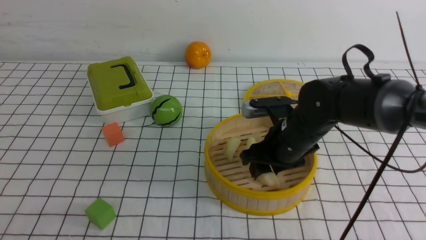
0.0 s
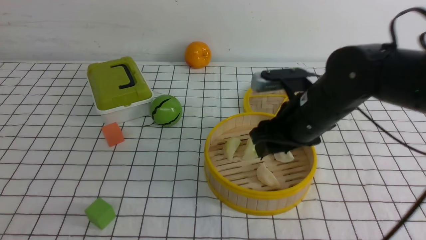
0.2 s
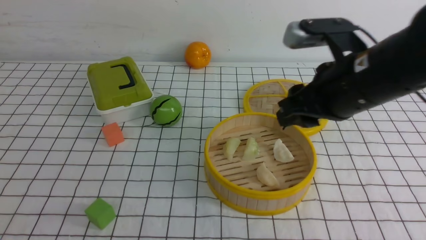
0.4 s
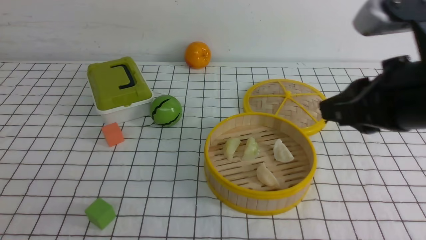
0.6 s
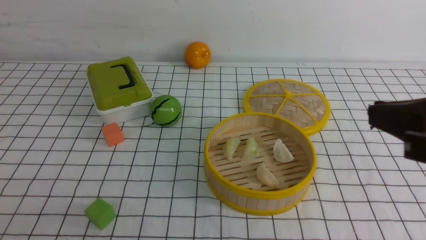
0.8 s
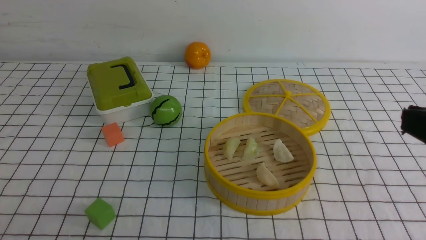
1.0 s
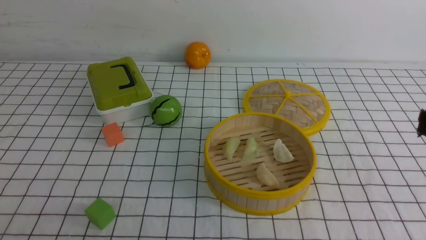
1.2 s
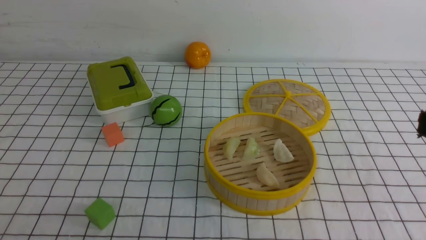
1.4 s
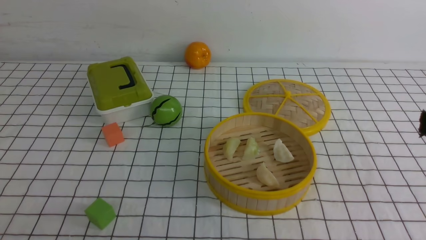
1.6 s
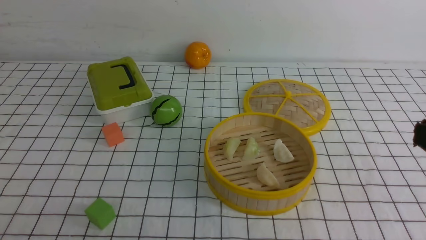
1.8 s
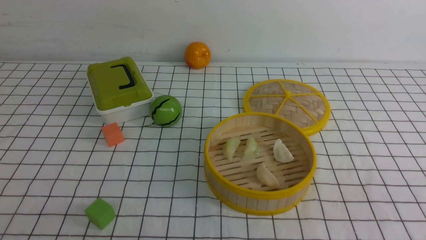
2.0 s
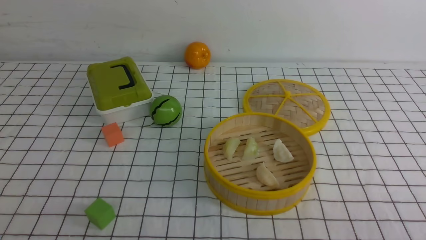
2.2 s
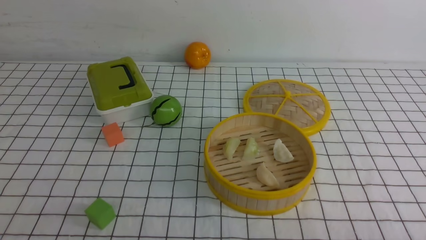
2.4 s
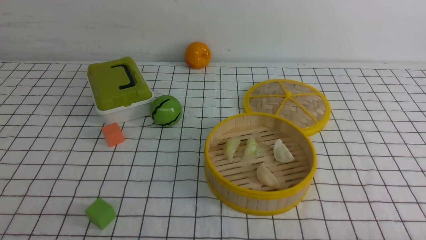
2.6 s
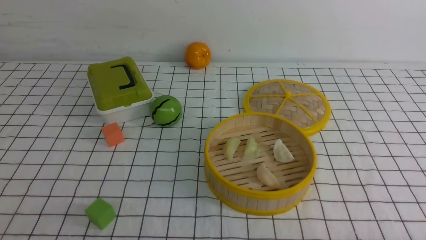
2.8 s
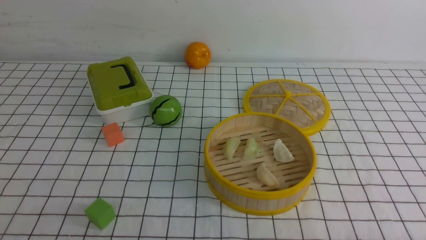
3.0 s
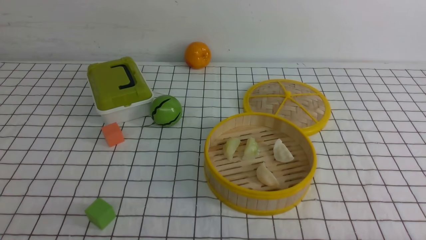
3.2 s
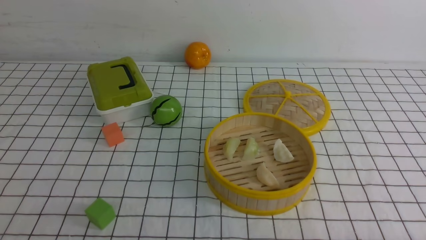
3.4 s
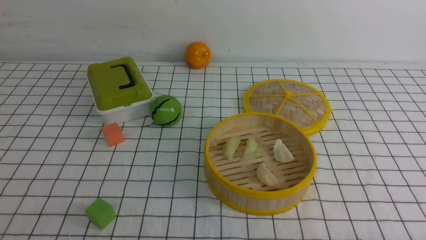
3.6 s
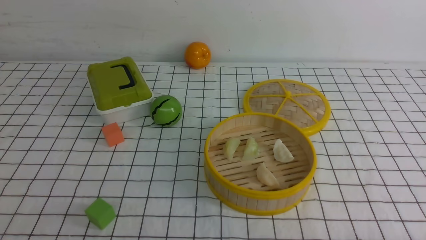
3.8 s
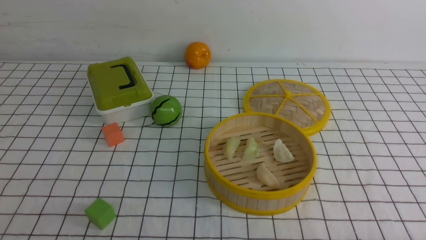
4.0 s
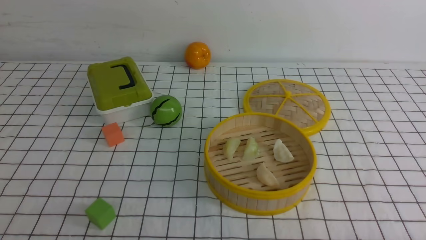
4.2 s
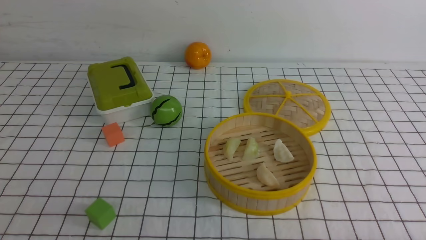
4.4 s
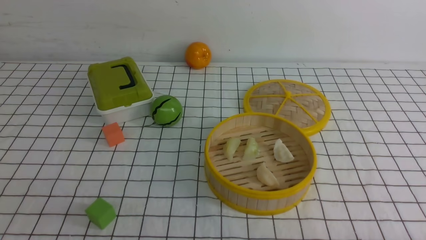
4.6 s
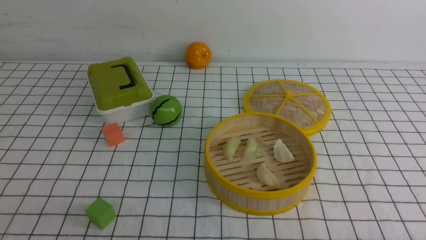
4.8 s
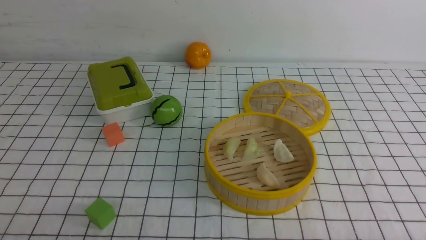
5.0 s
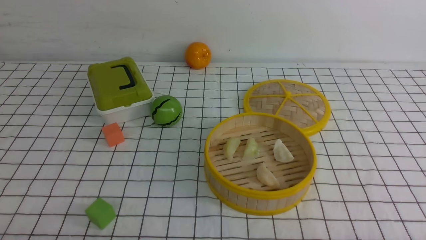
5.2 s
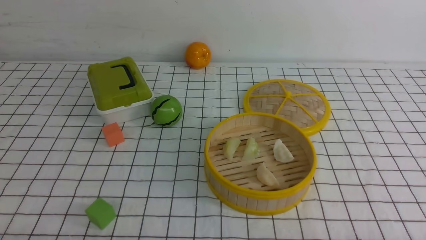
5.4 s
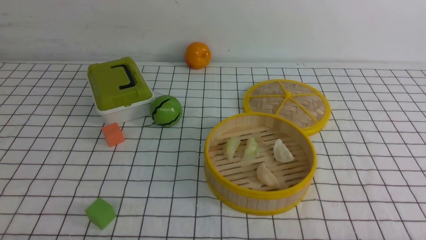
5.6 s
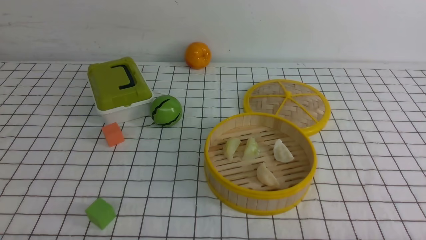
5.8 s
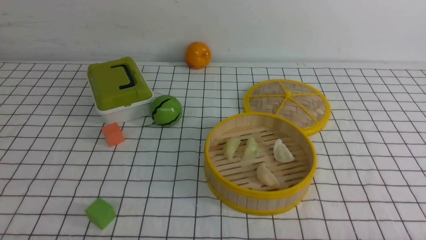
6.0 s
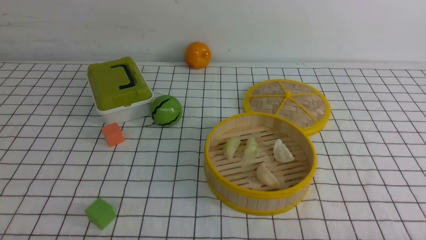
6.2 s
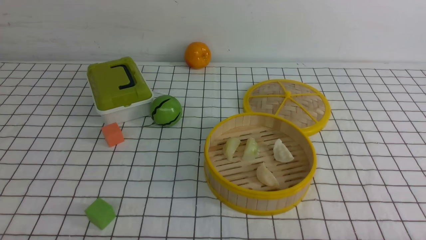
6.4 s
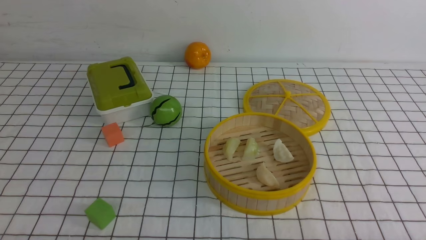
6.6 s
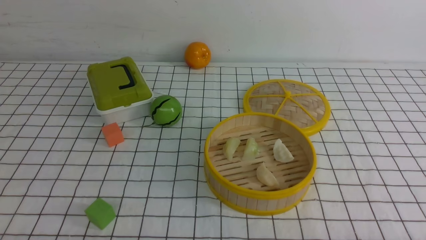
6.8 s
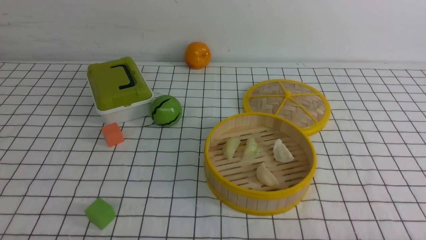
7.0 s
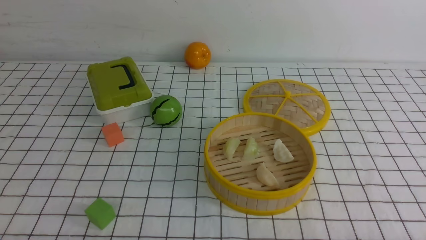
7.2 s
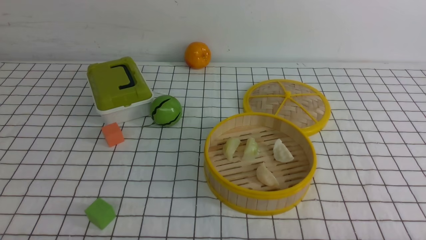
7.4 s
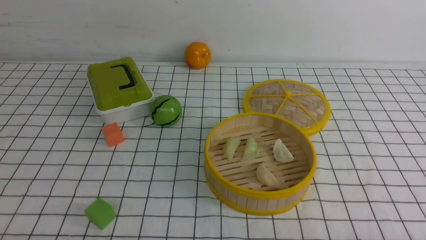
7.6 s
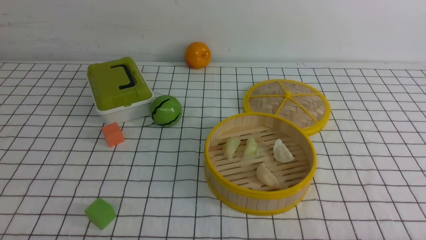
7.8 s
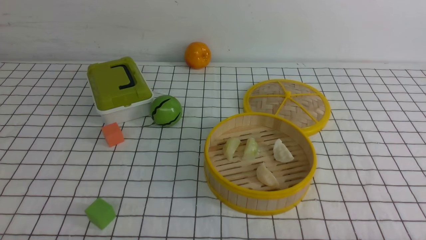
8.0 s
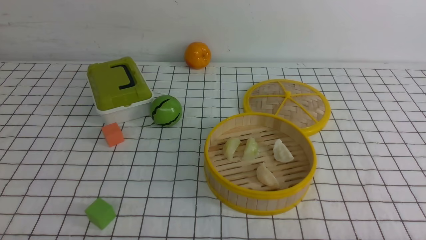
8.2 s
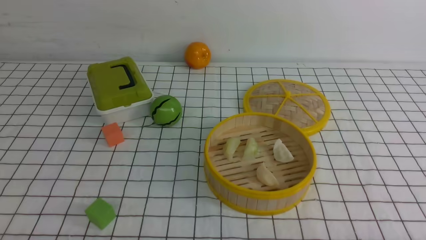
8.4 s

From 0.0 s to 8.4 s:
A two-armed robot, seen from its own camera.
Task of the whole recording: put the dumplings into the steamer on the table with the white tablecloth.
From 0.0 s to 1.4 s: The right gripper travels backward, upward and to the right by roughly 35 cm, and closes.
From 2.8 s to 4.2 s: Neither gripper changes place.
From 7.0 s to 8.4 s: The two grippers keep their place.
